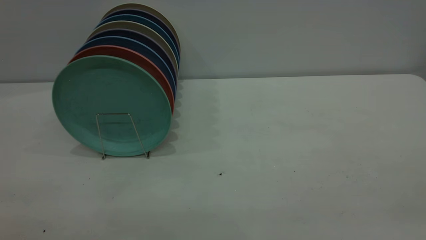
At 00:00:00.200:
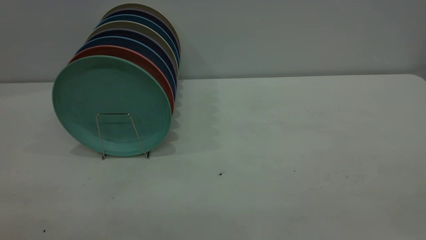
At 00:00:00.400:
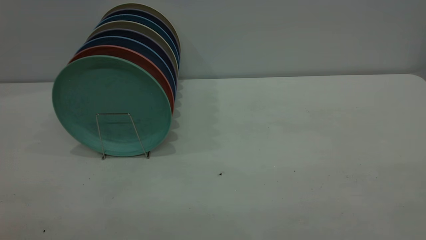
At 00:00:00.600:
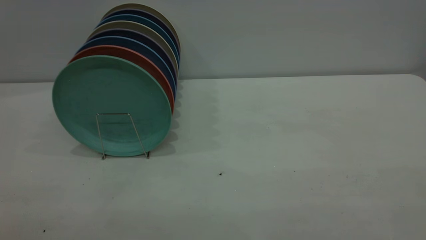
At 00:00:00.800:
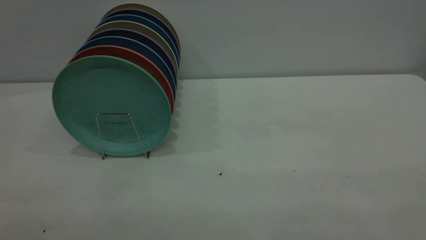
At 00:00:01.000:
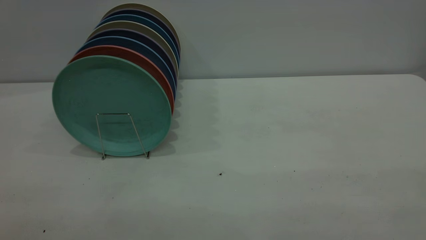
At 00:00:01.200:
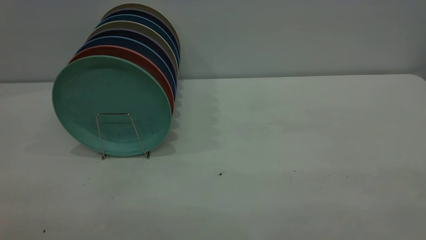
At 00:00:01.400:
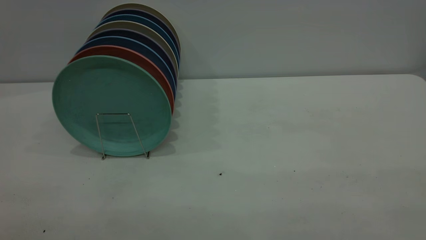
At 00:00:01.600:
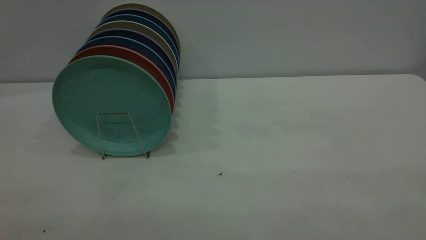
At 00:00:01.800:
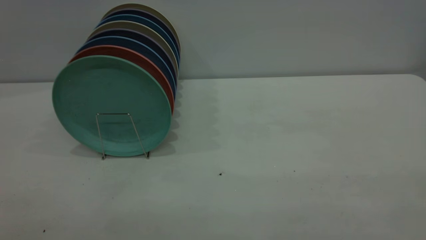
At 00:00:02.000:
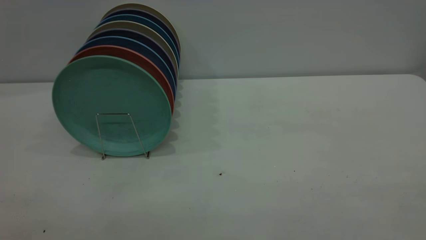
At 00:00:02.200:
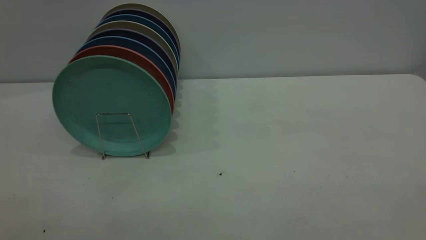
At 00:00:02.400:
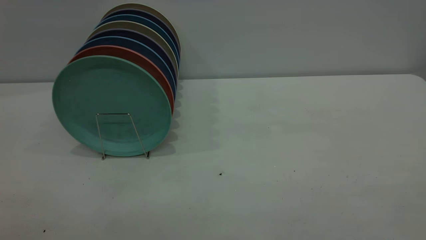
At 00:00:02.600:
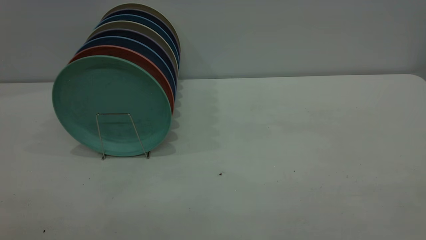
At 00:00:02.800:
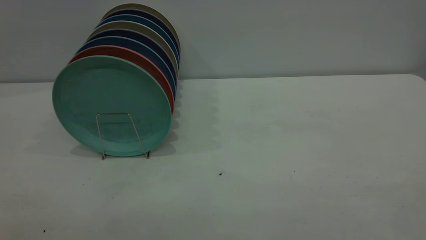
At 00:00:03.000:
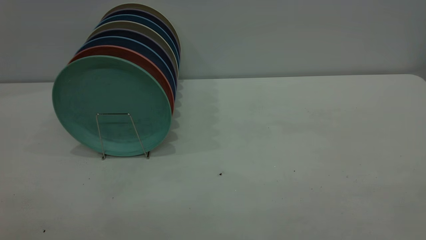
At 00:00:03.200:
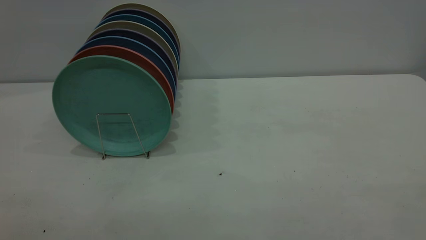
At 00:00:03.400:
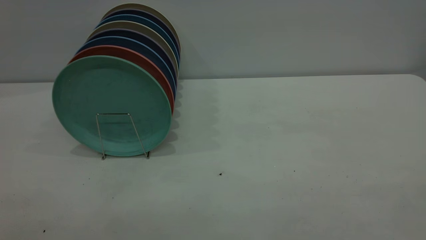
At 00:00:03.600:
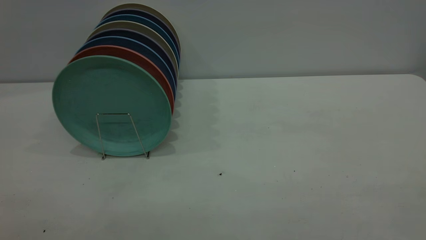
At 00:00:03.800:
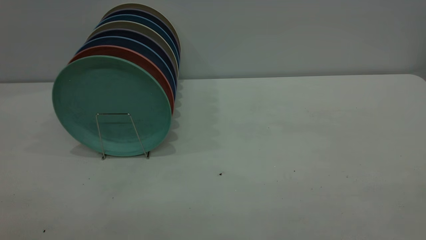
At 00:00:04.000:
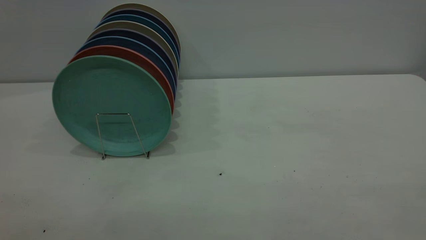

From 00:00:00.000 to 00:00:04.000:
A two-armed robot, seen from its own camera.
Task of the whole recording: the right gripper grasp the green plate, the right gripper pass the green plate to the left gripper, and the left gripper place the green plate on the plate rack.
From 00:00:02.600 to 00:00:04.000: Both grippers stay put.
